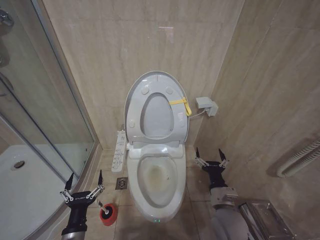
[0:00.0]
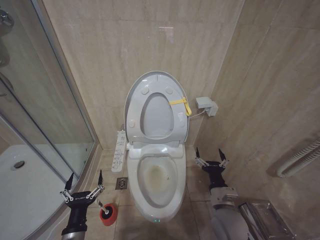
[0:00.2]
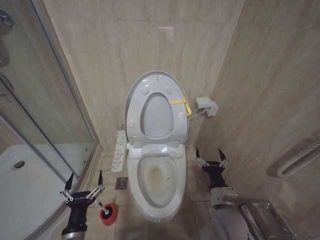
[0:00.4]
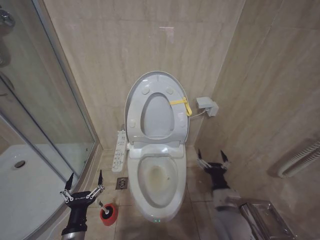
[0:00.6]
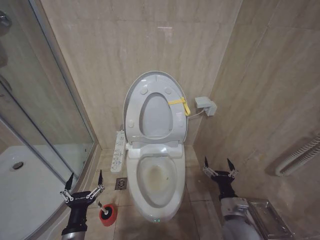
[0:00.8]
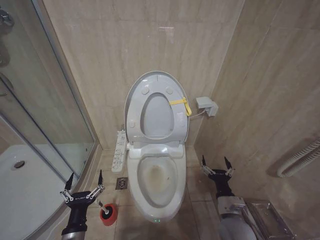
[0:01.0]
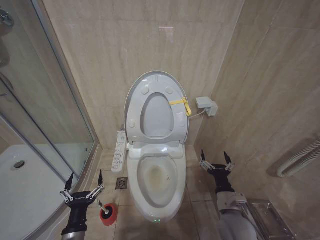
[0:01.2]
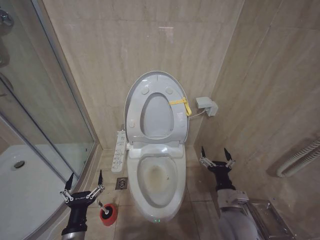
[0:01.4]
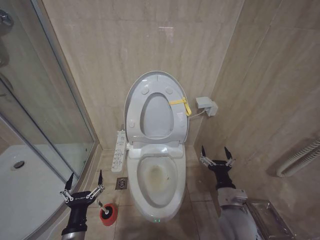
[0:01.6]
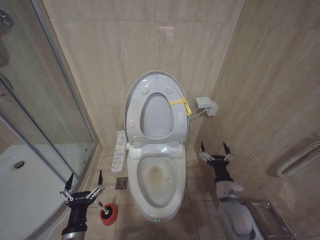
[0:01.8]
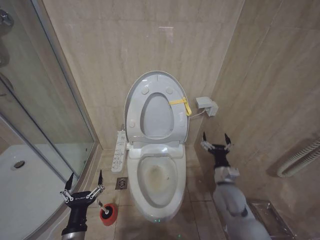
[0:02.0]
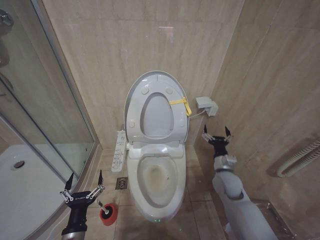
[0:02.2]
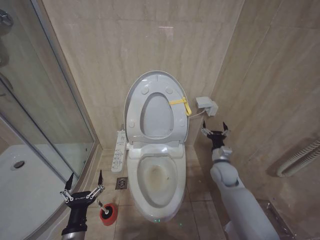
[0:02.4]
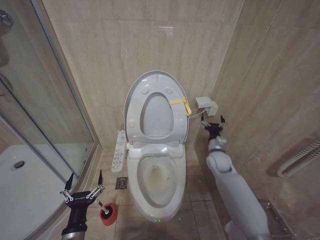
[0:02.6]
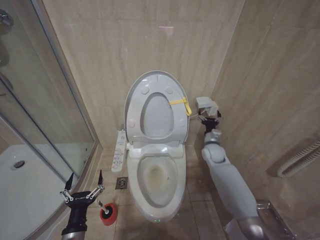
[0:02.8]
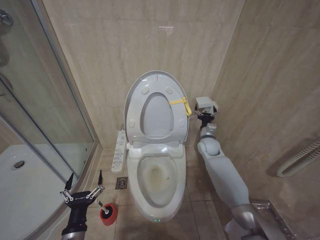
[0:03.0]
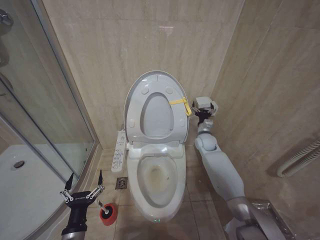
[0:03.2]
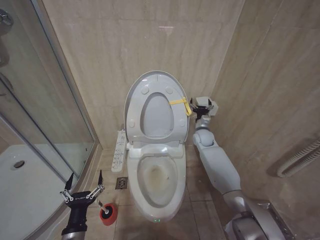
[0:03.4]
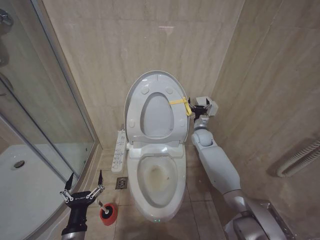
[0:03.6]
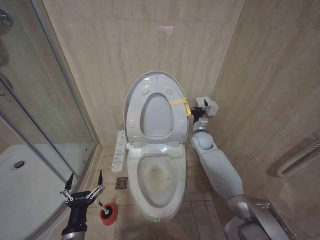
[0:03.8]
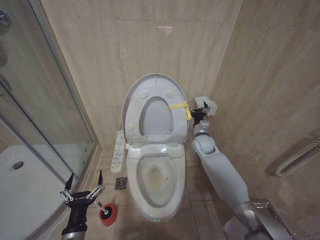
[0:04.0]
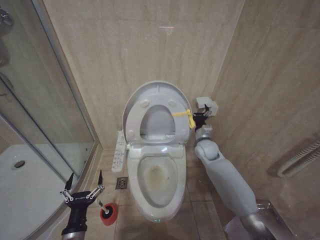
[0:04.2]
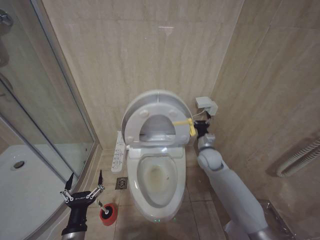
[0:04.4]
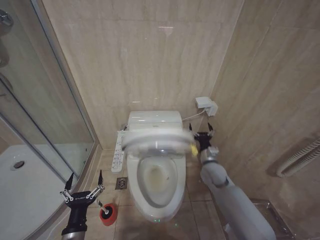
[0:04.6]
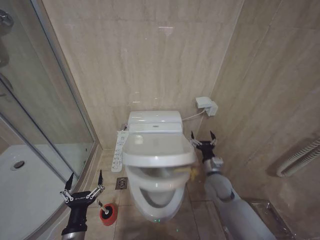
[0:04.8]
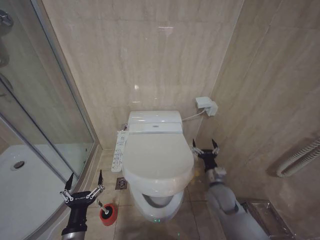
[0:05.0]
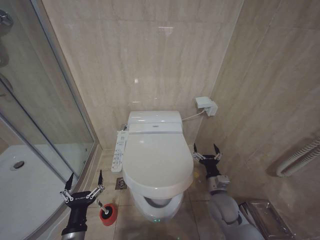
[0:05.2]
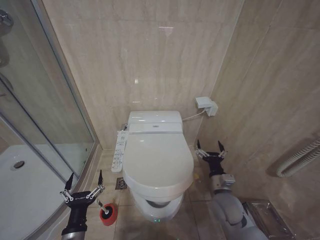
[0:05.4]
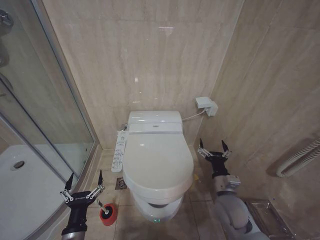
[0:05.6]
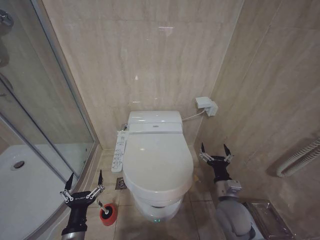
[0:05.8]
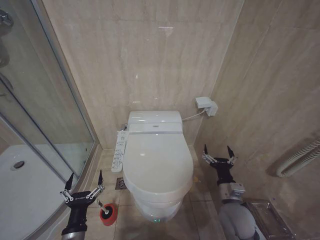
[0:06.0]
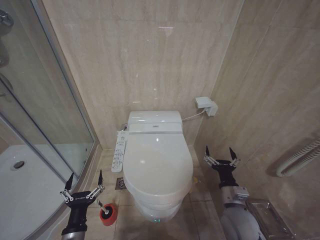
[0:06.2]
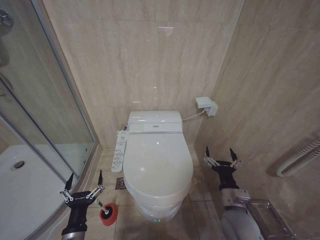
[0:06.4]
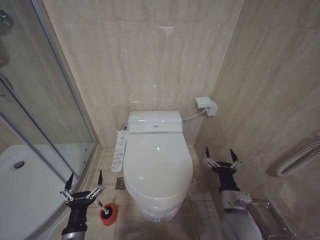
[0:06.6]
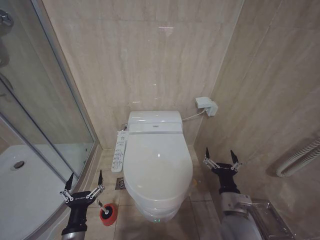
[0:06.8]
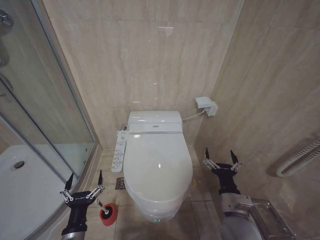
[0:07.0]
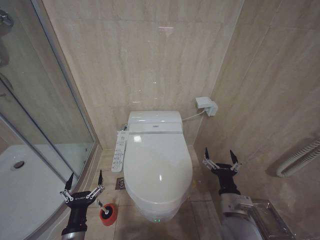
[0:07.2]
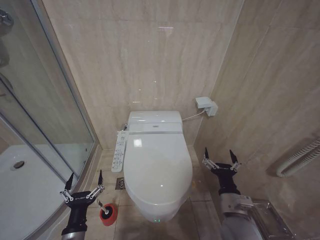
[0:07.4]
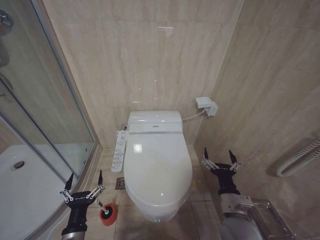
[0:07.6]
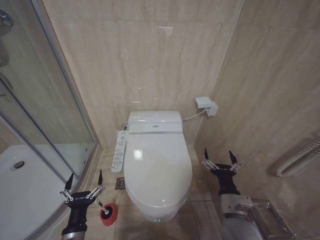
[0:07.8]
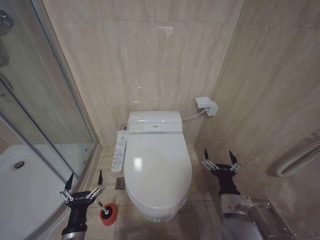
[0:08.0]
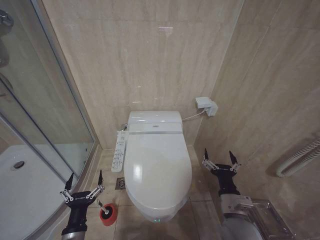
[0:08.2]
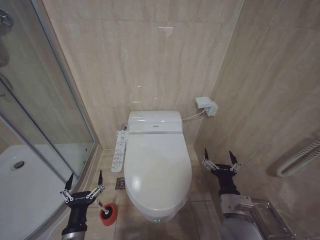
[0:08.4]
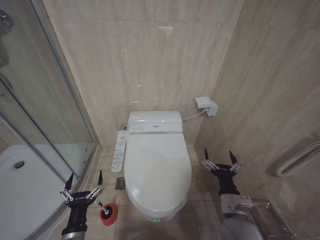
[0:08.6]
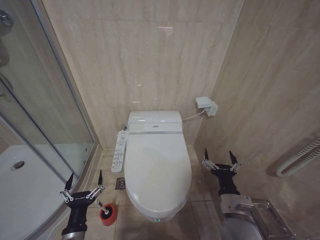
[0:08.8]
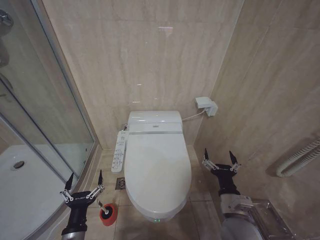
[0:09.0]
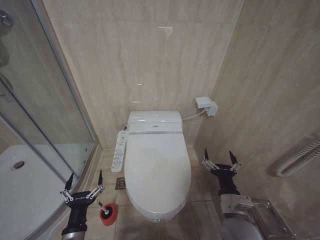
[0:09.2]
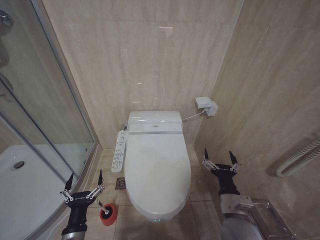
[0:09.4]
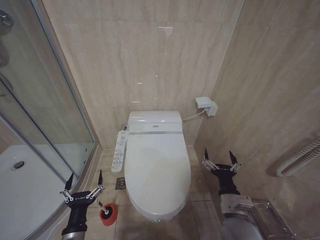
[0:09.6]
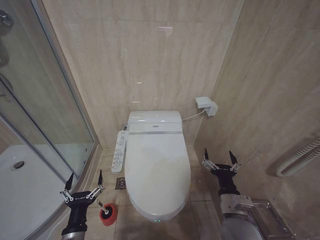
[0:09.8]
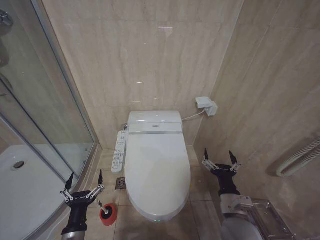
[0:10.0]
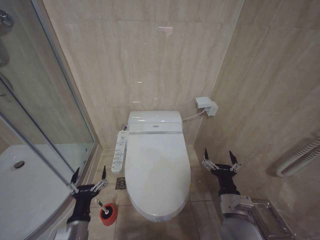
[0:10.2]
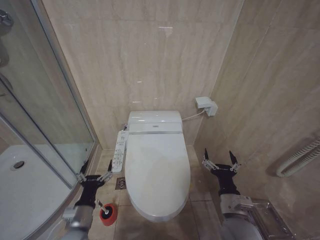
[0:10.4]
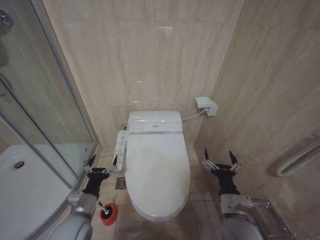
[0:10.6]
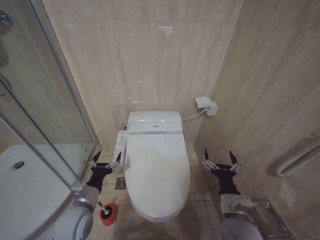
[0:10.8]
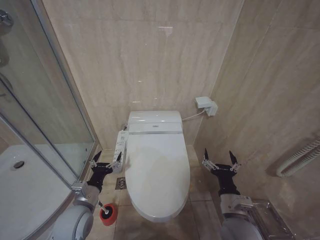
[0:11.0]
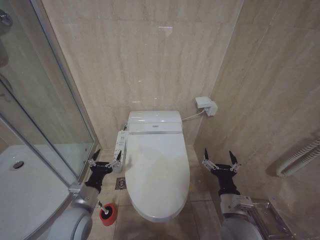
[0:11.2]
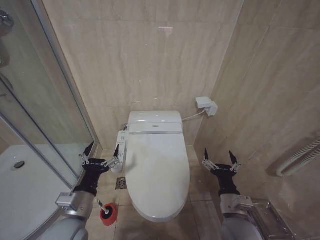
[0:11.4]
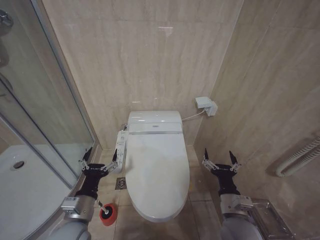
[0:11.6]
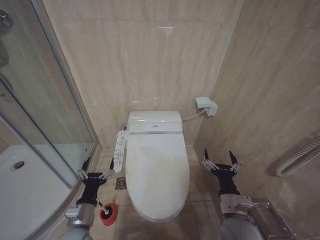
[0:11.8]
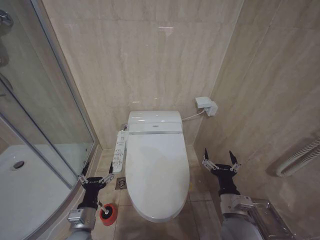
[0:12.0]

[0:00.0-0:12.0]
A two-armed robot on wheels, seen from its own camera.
Task of the whole recording: Open the toilet lid, clean the toilet bowl with a toilet brush, close the toilet lid, and flush.
0:00.0 to 0:01.6: The grippers make only small movements.
0:01.6 to 0:03.0: The right gripper travels forward by about 30 cm.
0:03.0 to 0:04.4: The right gripper shifts by roughly 5 cm.
0:04.4 to 0:06.0: The right gripper goes some 20 cm backward.
0:06.0 to 0:07.6: The right gripper changes place by approximately 5 cm.
0:07.6 to 0:09.0: Both grippers stay put.
0:09.0 to 0:10.4: The grippers move only a little.
0:10.4 to 0:12.0: The left gripper reaches some 10 cm upward, then returns.

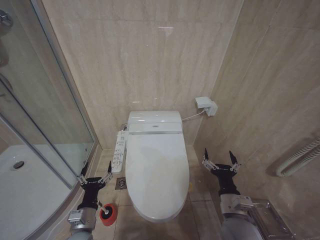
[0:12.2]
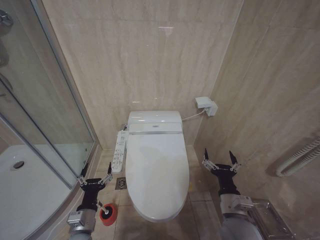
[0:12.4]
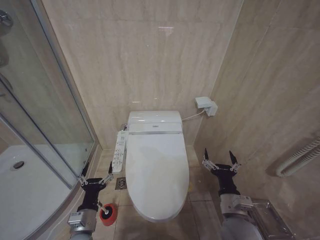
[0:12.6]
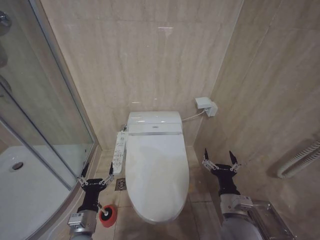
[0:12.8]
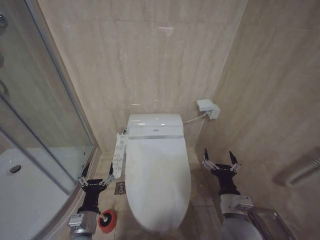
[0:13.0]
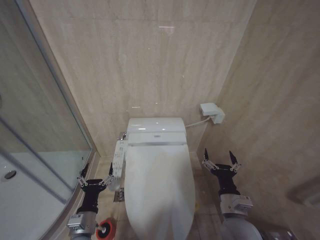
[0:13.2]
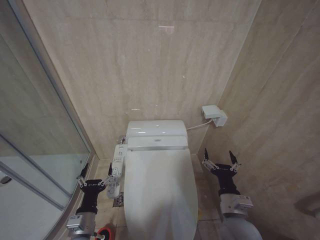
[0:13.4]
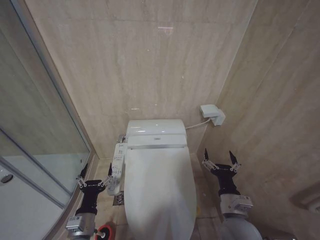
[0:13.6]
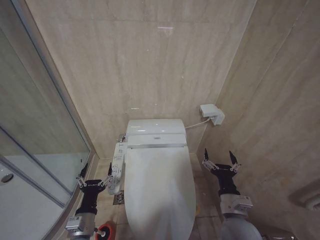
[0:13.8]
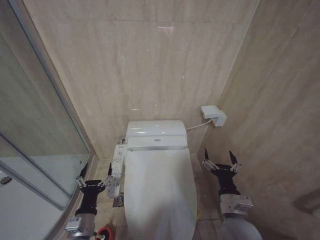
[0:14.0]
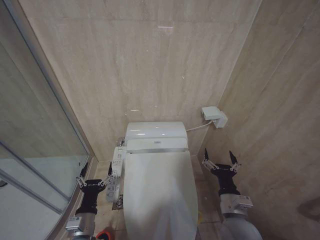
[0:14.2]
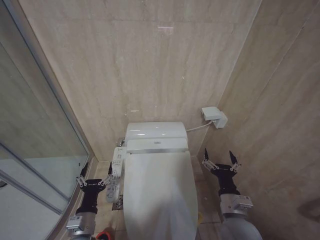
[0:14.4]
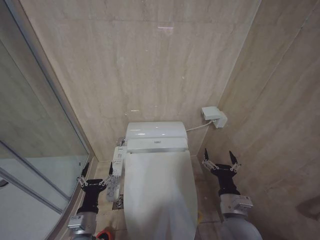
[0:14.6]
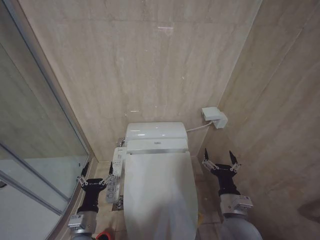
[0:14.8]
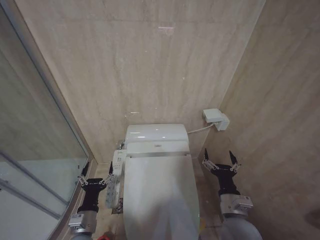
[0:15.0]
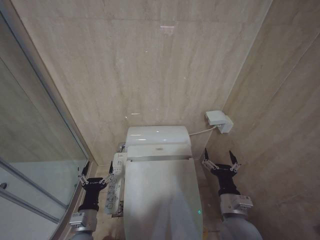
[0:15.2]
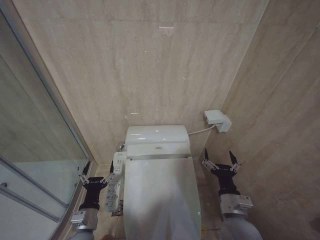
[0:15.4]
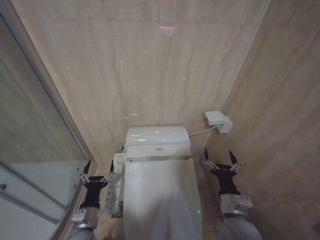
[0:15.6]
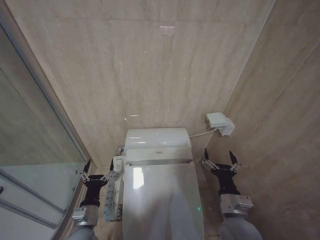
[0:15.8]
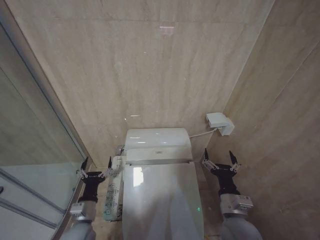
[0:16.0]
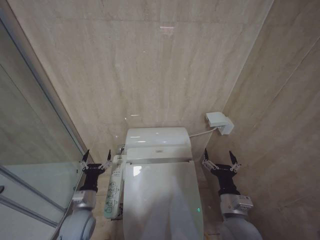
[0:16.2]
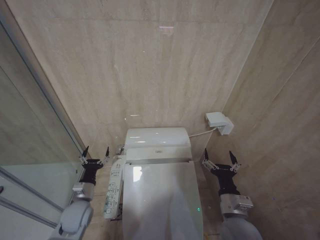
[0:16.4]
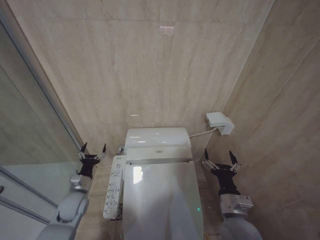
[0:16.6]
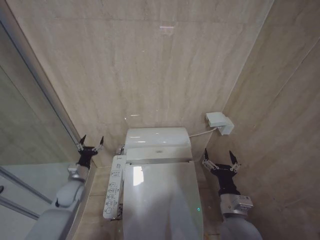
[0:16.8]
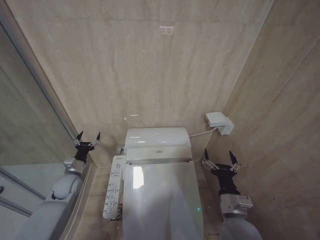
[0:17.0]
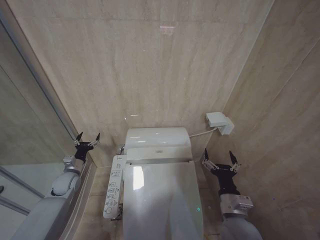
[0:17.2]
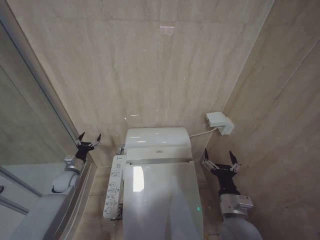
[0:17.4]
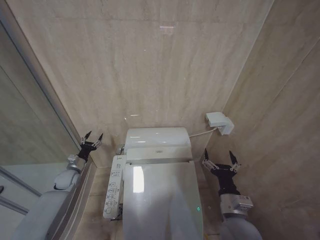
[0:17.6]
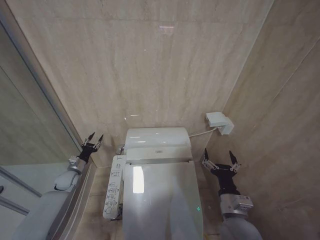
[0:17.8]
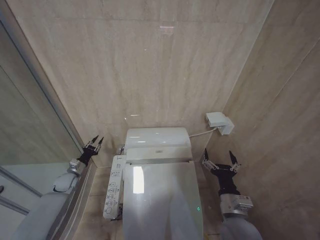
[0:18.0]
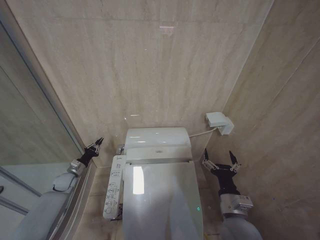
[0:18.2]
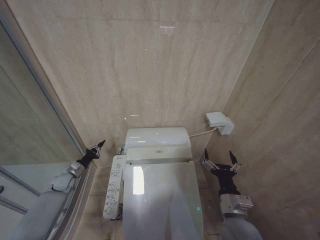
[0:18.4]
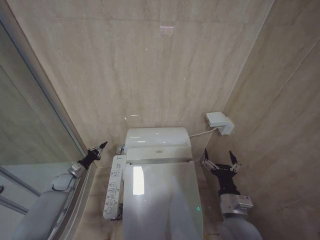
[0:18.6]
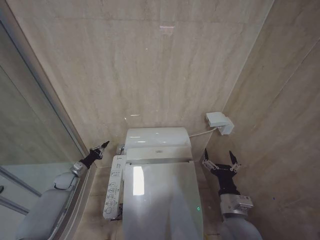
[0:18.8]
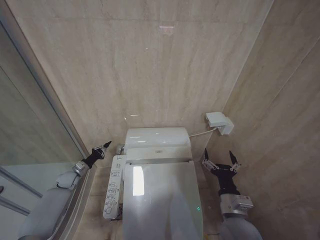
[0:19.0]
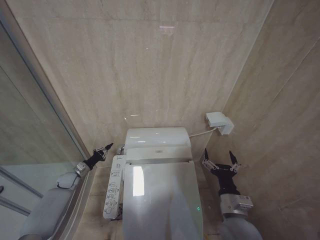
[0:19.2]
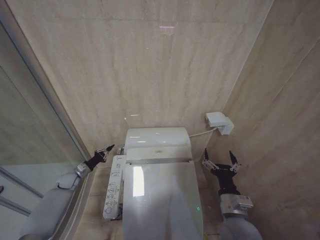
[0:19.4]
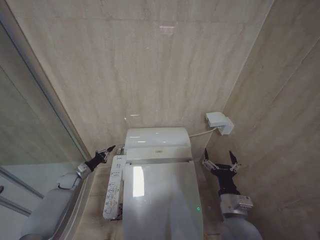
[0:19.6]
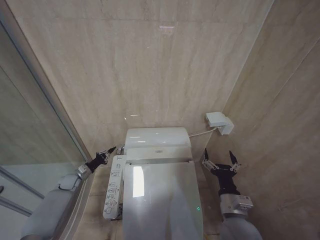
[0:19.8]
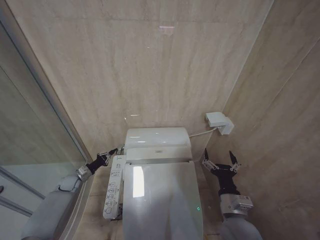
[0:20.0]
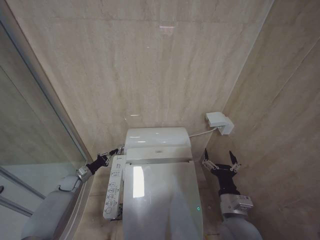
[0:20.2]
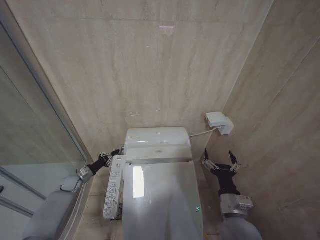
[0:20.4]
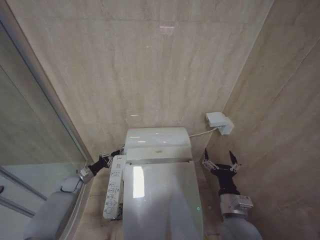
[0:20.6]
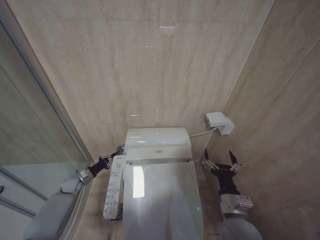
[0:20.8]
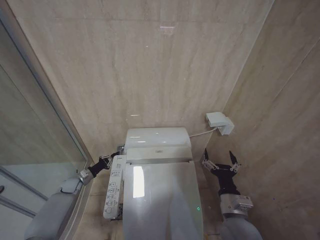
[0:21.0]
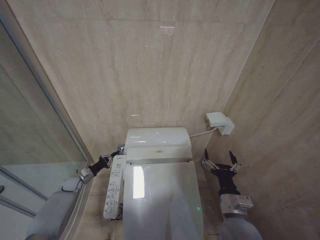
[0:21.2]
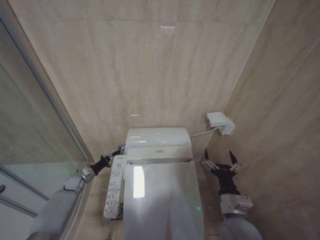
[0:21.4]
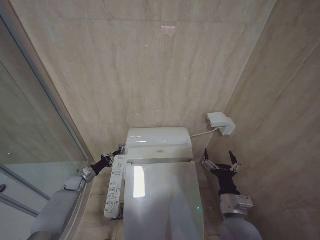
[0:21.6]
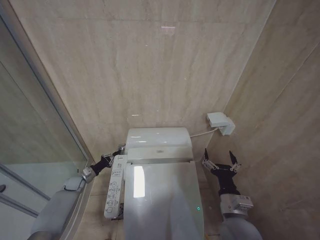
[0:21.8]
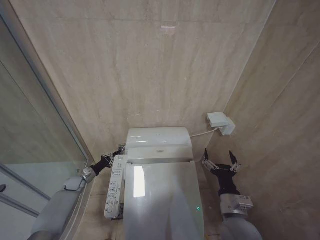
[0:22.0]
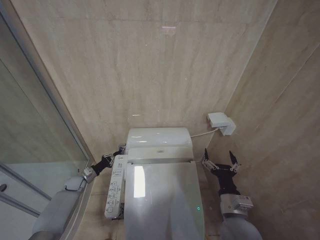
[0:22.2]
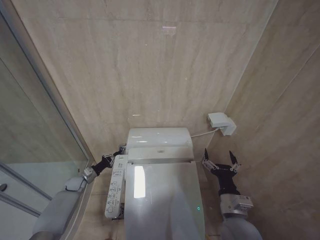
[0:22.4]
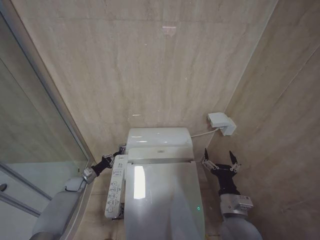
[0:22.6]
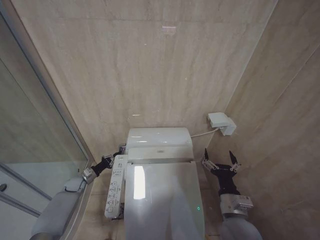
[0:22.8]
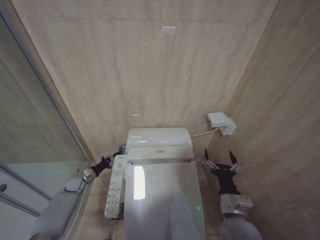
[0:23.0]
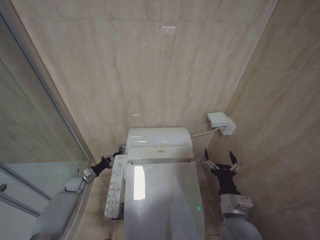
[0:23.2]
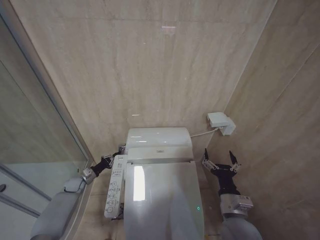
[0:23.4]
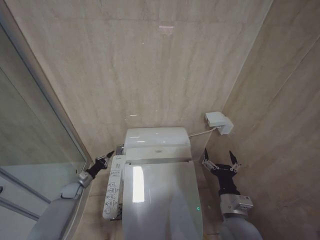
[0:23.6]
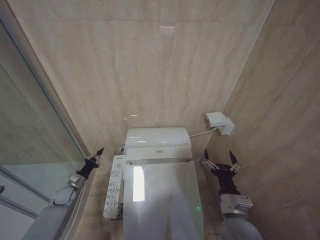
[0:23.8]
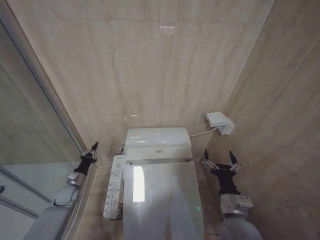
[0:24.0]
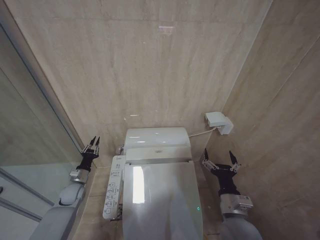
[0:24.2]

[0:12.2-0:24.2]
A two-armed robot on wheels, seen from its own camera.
Task of the whole recording: Open the toilet lid, clean the toilet bowl with a toilet brush, close the toilet lid, and flush.
0:12.2 to 0:13.8: There are only small adjustments of the grippers.
0:13.8 to 0:15.2: Both grippers stay about where they are.
0:15.2 to 0:16.6: The left gripper moves forward and to the left, roughly 15 cm.
0:16.6 to 0:18.2: The left gripper moves forward and to the left, about 15 cm, and closes.
0:18.2 to 0:19.8: The left gripper closes its fingers.
0:21.2 to 0:22.6: The grippers stay close to where they were, moving slightly.
0:22.6 to 0:24.2: The left gripper goes about 5 cm backward.
